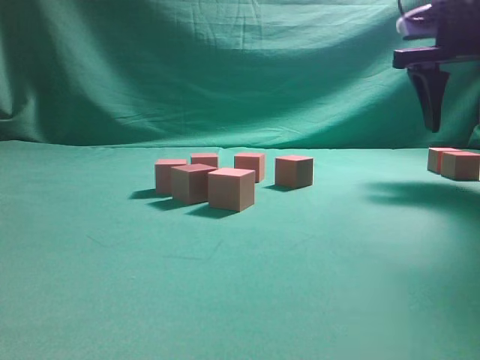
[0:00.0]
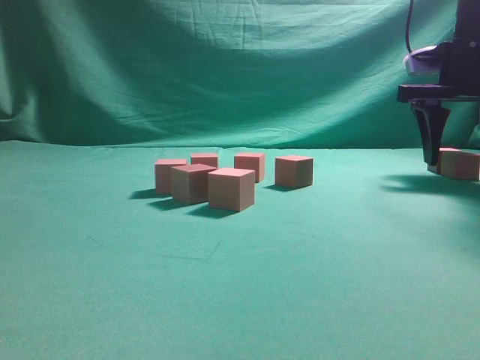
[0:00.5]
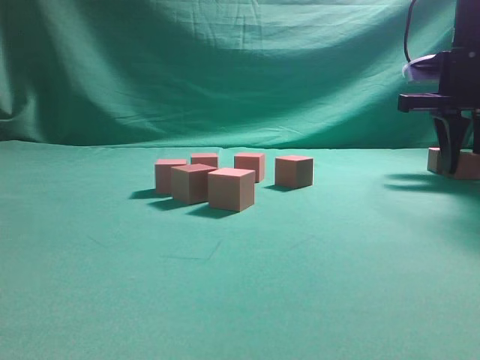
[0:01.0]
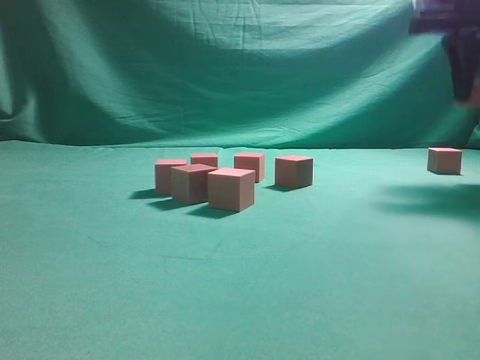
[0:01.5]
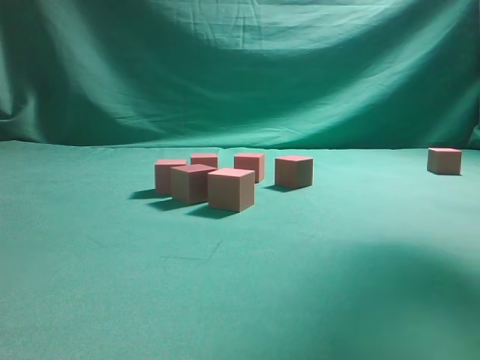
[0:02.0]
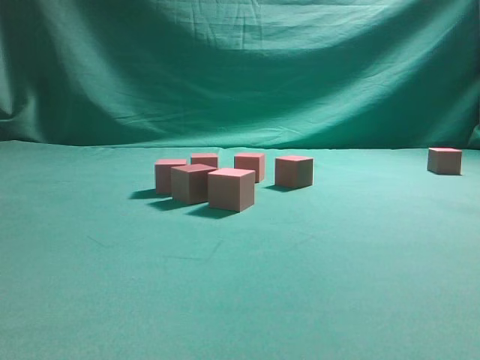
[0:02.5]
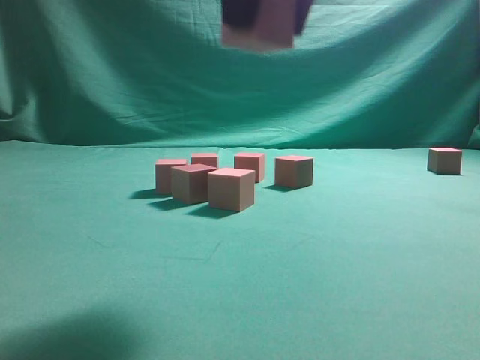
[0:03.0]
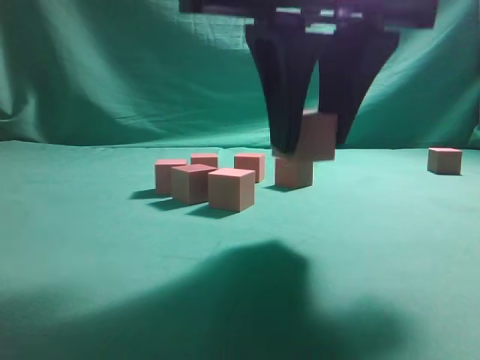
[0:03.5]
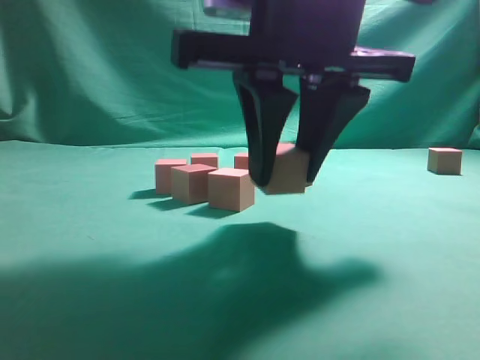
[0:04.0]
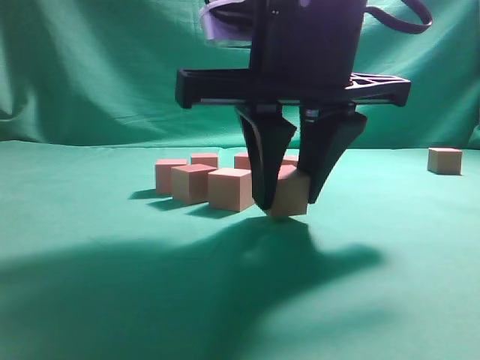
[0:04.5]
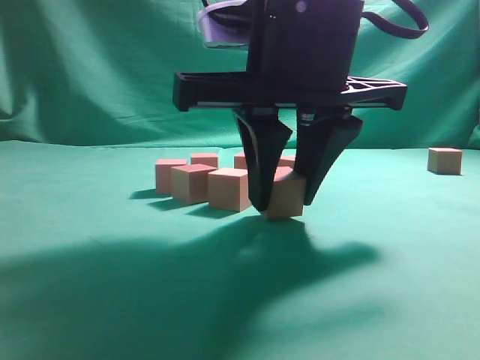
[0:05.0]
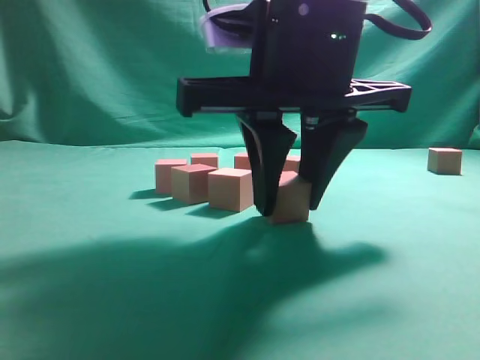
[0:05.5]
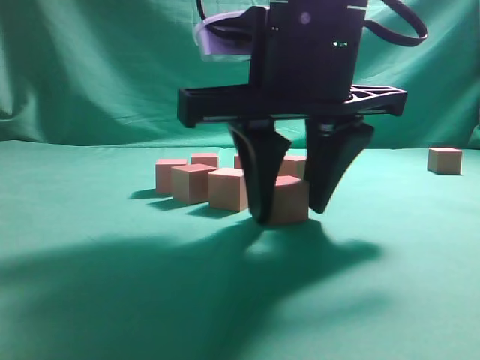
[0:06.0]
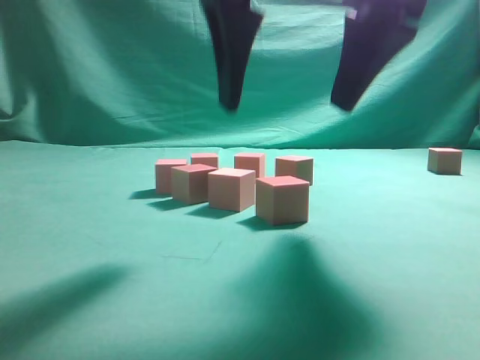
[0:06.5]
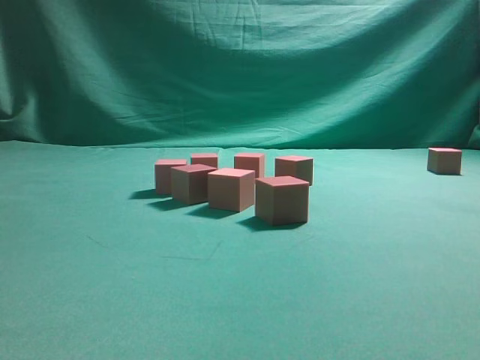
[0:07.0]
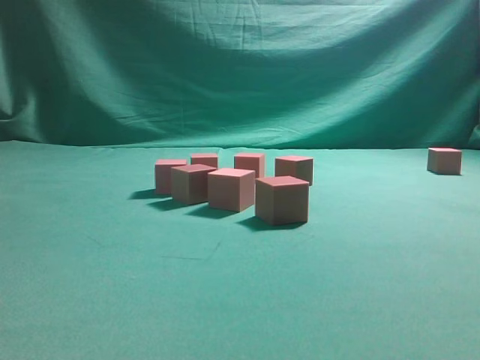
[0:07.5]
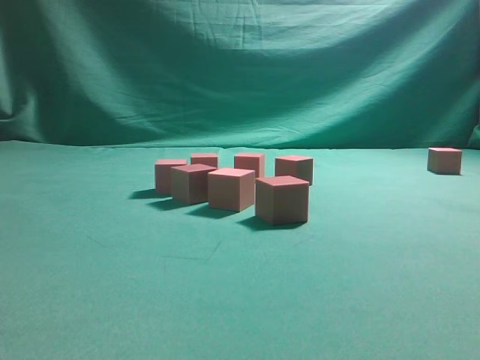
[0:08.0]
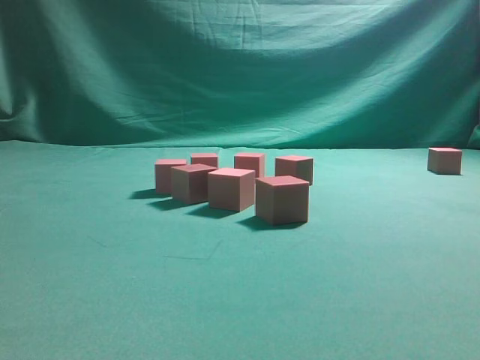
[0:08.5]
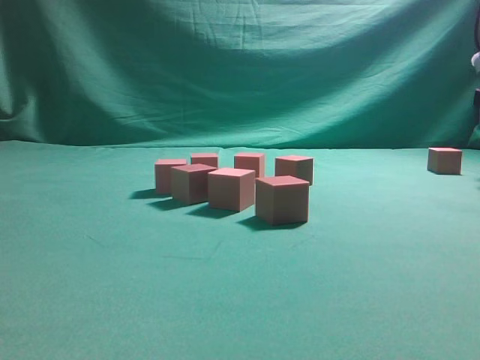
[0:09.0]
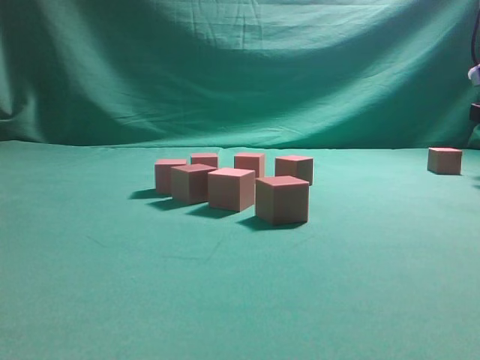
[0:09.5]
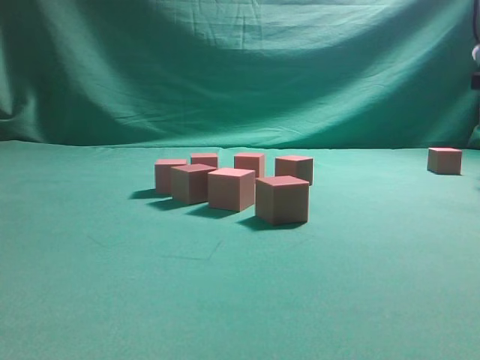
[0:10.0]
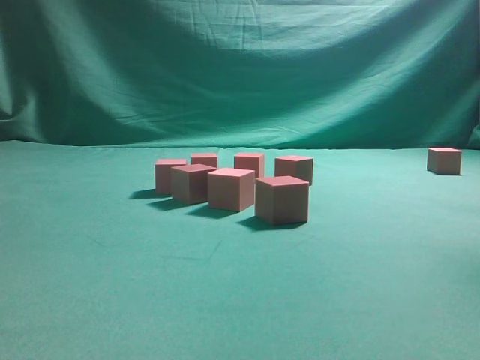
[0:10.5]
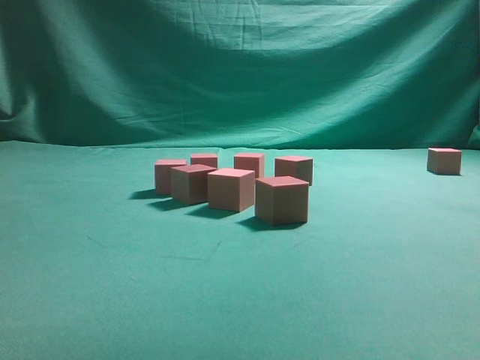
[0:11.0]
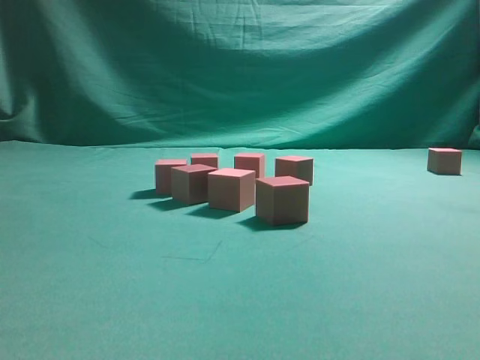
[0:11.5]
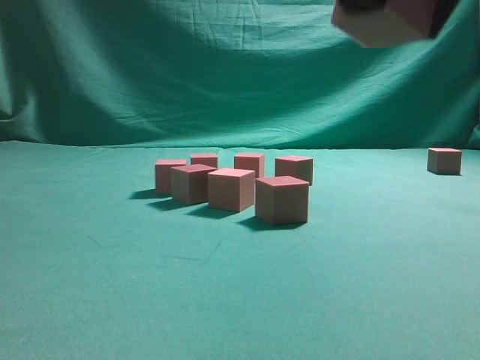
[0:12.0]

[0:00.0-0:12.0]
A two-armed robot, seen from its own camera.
Task of the whole recording: pick up the multiple cubes in two columns one by one and place them in another position on the table.
Step, 0:01.5 to 0:06.0: Place the block at the correct position to assemble the letter S.
0:00.0 to 0:02.0: The right gripper is displaced upward and backward by approximately 20 cm, and closes.
0:02.0 to 0:04.0: The right gripper goes roughly 30 cm downward, to the left and backward.
0:06.0 to 0:08.0: The right gripper goes about 30 cm to the right and upward.
0:10.0 to 0:12.0: The right gripper is displaced backward and to the left by some 35 cm.

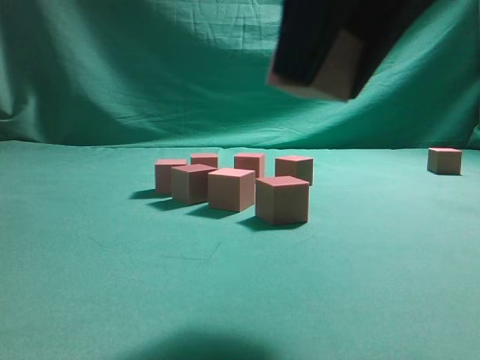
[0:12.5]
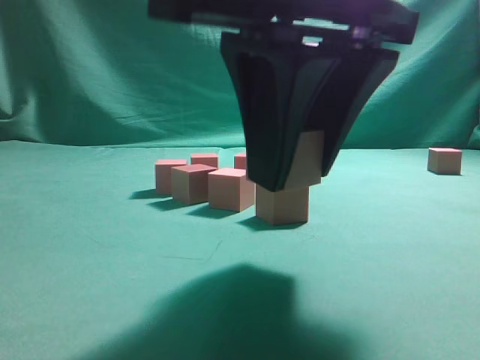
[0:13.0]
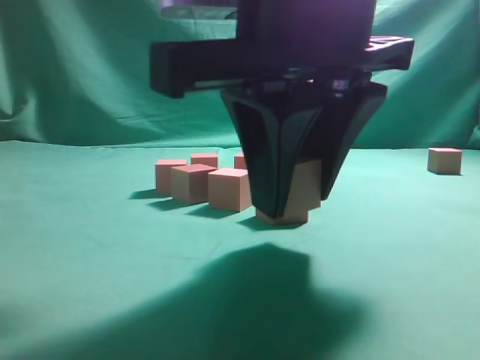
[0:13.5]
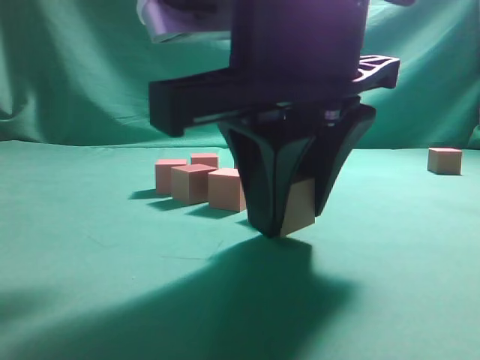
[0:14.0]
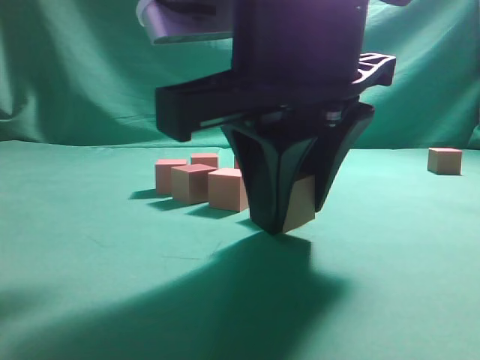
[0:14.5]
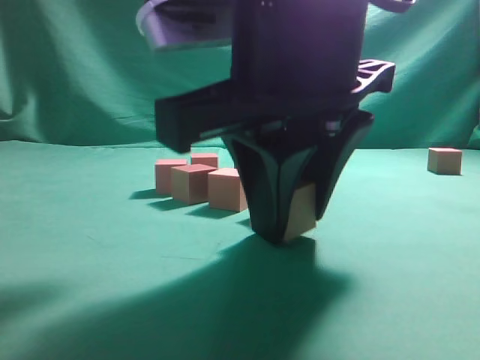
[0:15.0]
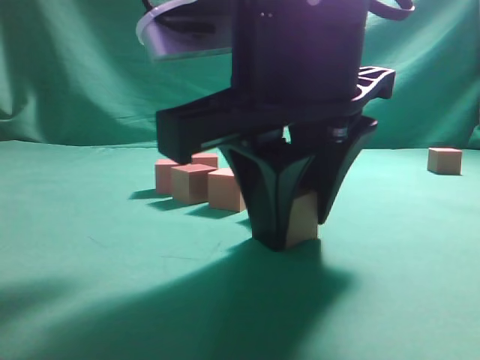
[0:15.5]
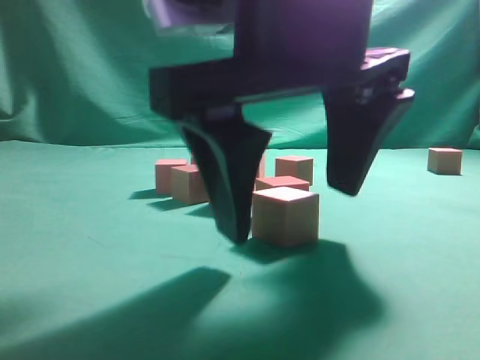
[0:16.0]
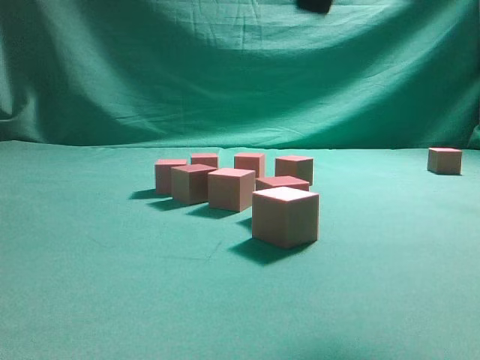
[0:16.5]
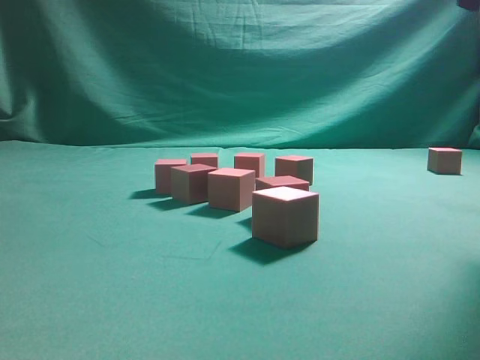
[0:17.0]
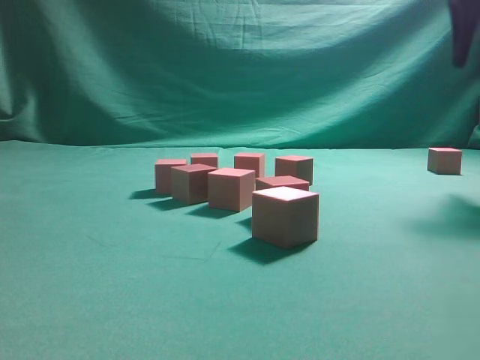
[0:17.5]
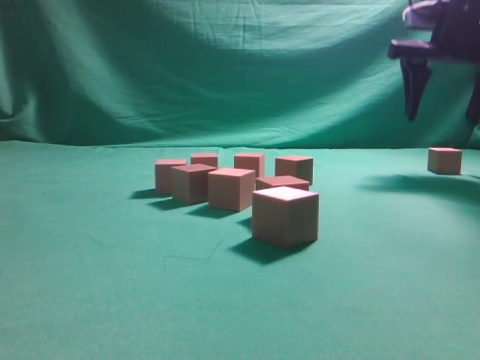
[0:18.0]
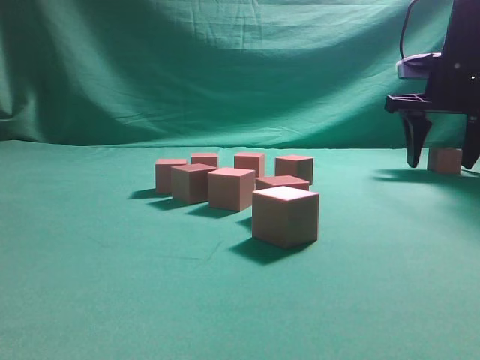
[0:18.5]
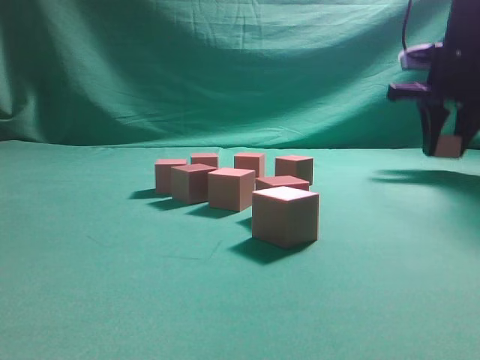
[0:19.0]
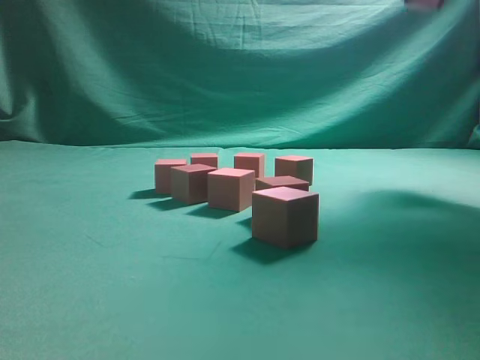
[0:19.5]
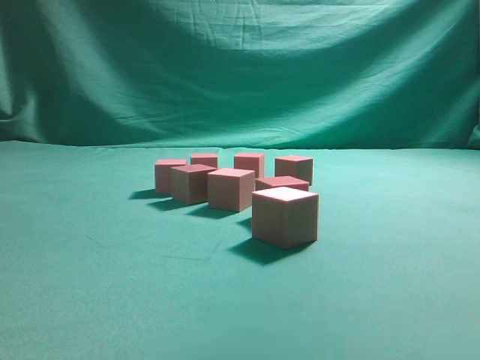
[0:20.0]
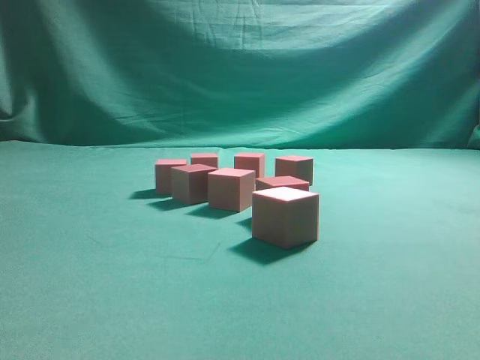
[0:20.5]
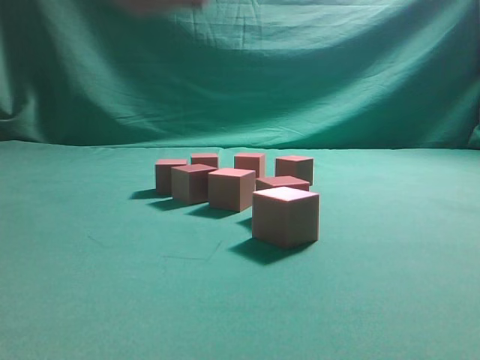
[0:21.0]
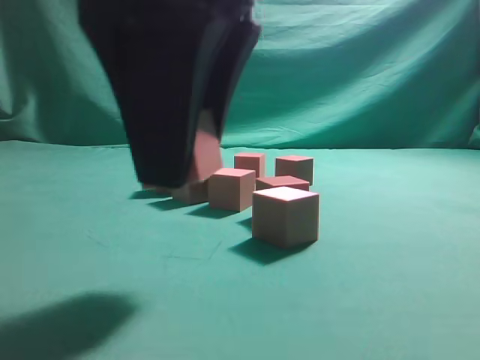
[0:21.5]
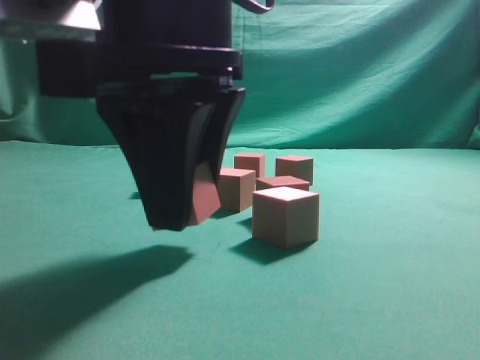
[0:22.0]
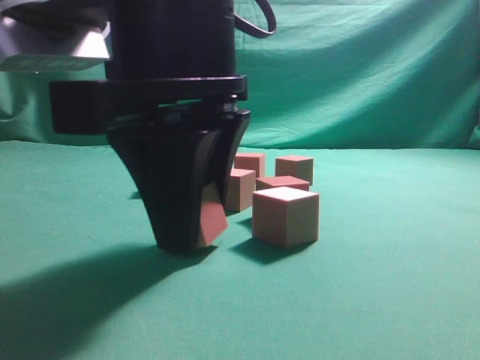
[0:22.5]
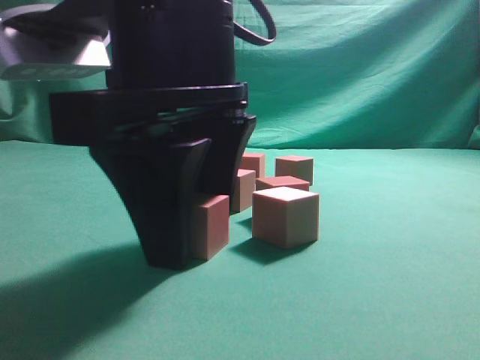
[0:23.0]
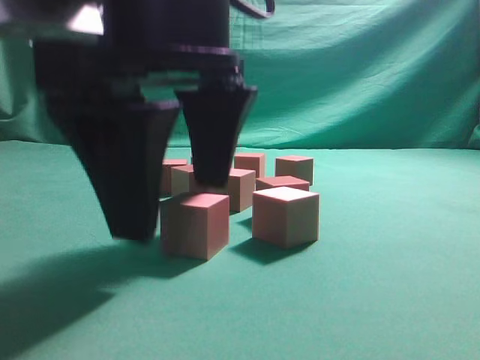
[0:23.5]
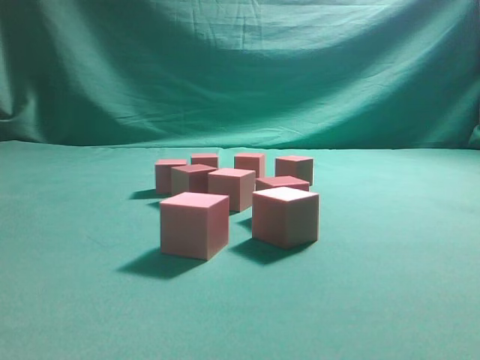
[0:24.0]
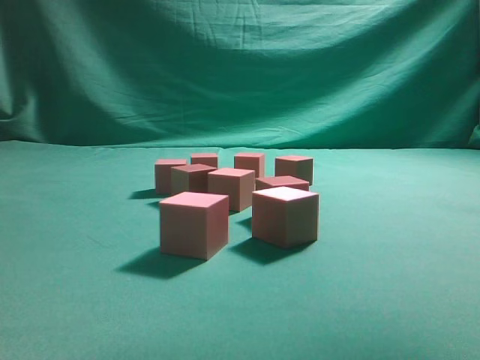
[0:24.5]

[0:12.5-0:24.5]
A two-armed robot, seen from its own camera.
Task of the whole recording: pick up the multiple cubes in two columns one by one and place them in another position on the table.
Step, 0:12.5 to 0:16.0: Place the block at the correct position to assemble the letter S.
Step, 0:16.5 to 0:17.5: Pick up the block on the table.
Step, 0:18.0 to 0:23.5: Place the block at the correct position to assemble the letter S.
0:12.5 to 0:14.5: The right gripper shifts roughly 10 cm downward and to the left.
0:14.5 to 0:16.5: The right gripper is displaced upward by about 10 cm, and opens.
0:16.5 to 0:18.5: The right gripper heads forward, to the right and downward, covering roughly 35 cm.
0:18.5 to 0:20.5: The right gripper is displaced backward, to the left and upward by about 40 cm, and closes its fingers.
0:20.5 to 0:22.5: The right gripper moves downward and to the left, about 20 cm.
0:22.5 to 0:24.5: The right gripper travels upward and to the right by about 30 cm, and opens up.

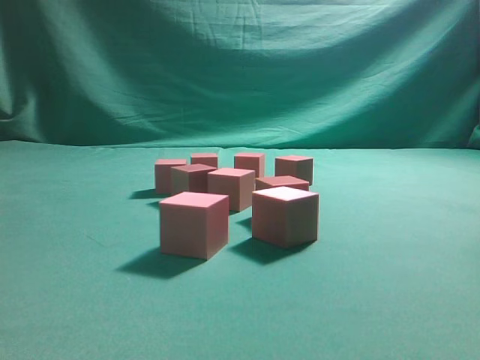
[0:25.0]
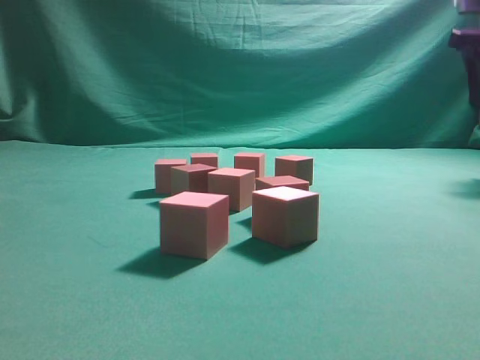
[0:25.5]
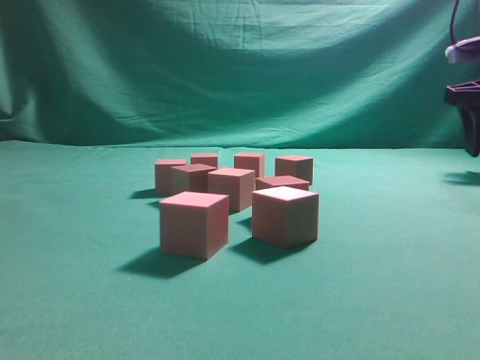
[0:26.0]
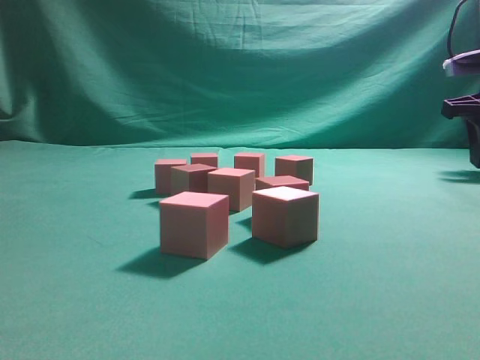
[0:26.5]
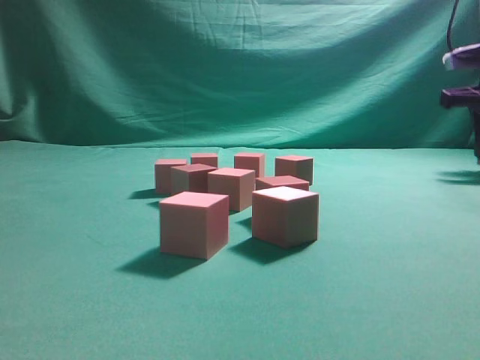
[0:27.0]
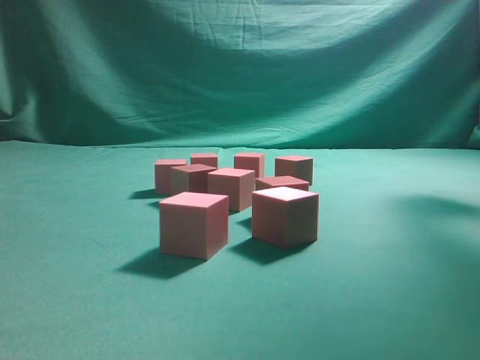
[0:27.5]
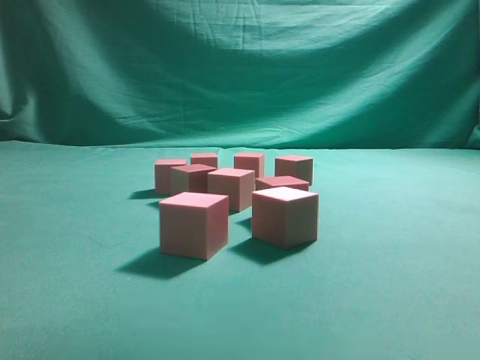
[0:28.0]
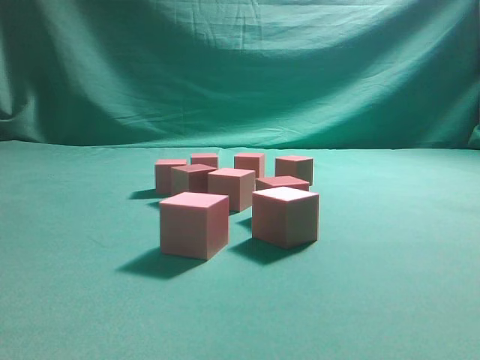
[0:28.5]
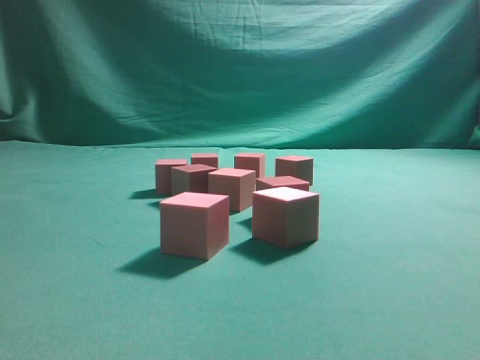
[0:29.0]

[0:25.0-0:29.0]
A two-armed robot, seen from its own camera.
Task of the whole recording: pick up the multiple cubes in two columns one by one and place them in another position on the table.
0:25.0 to 0:27.0: The right gripper is displaced downward and forward by about 20 cm, and closes its fingers.
0:27.0 to 0:29.0: The right gripper moves to the left, backward and upward, some 50 cm.
